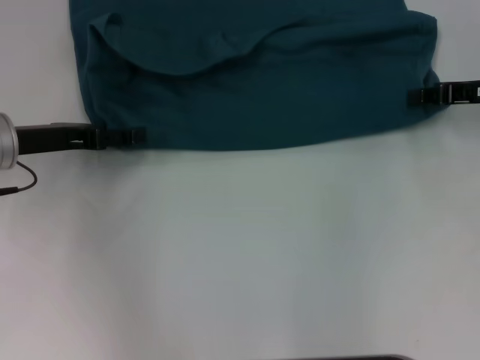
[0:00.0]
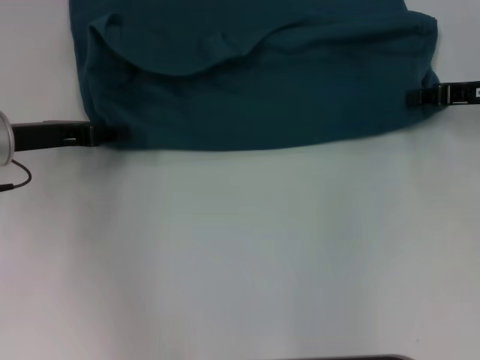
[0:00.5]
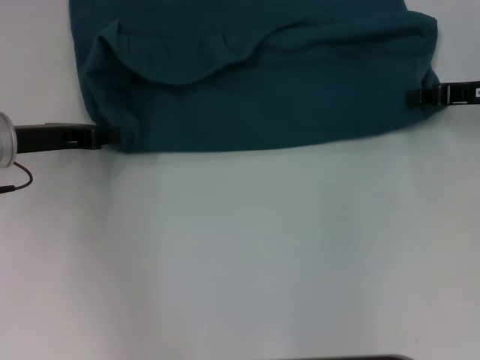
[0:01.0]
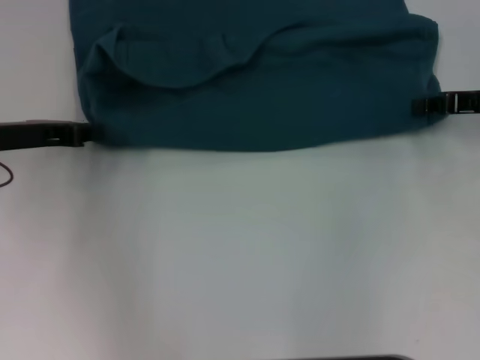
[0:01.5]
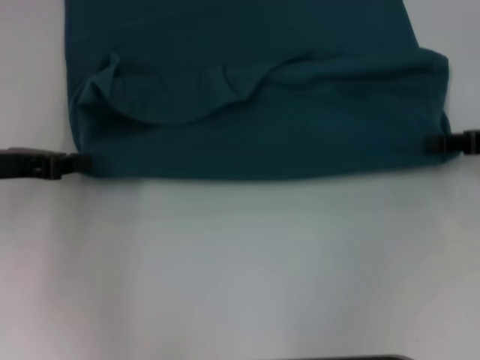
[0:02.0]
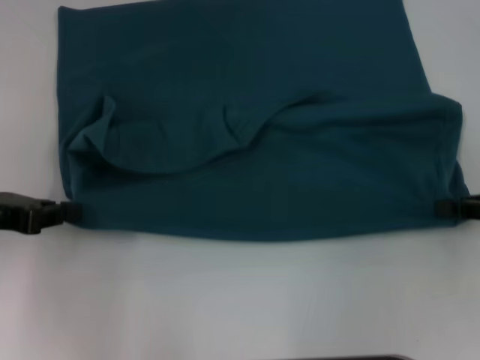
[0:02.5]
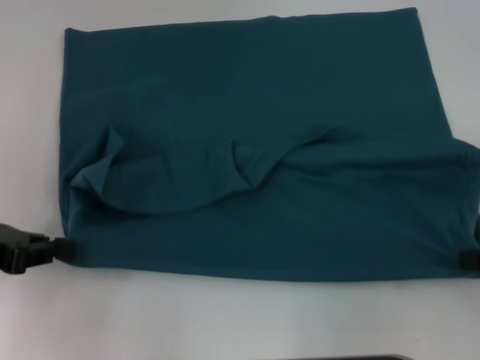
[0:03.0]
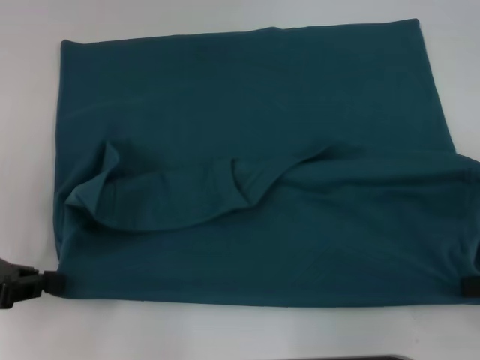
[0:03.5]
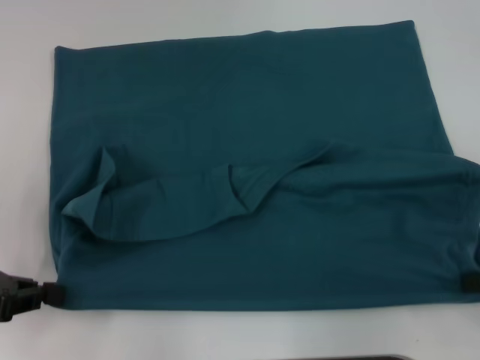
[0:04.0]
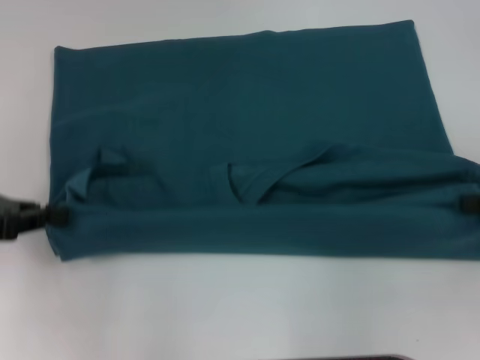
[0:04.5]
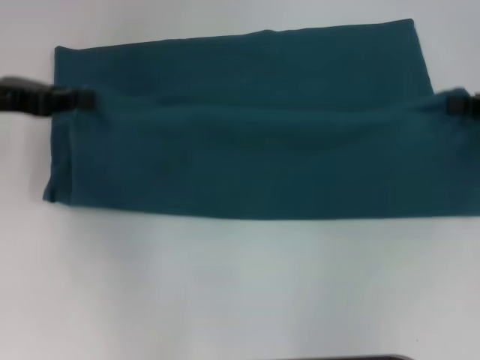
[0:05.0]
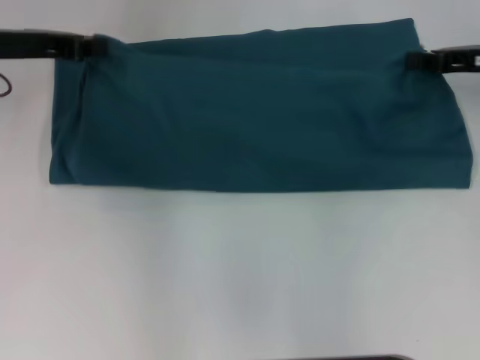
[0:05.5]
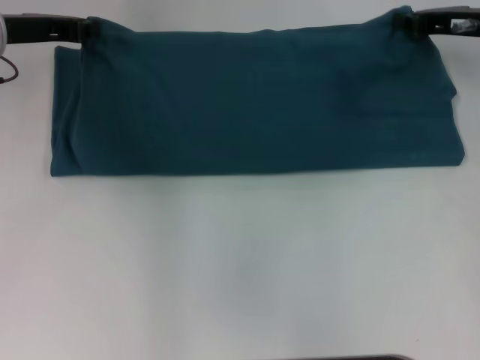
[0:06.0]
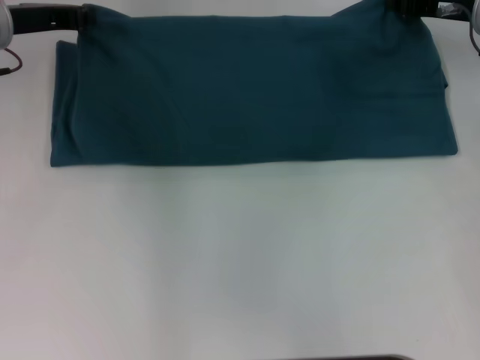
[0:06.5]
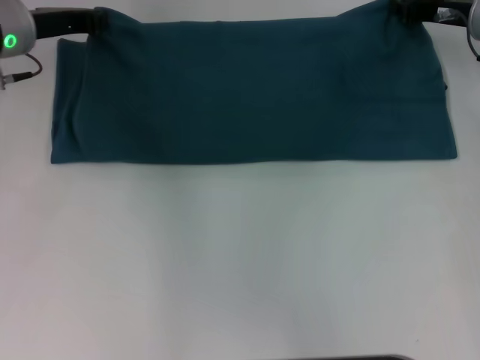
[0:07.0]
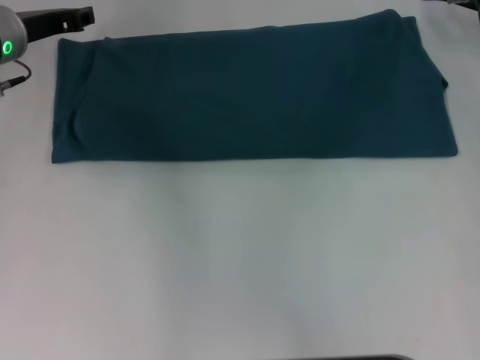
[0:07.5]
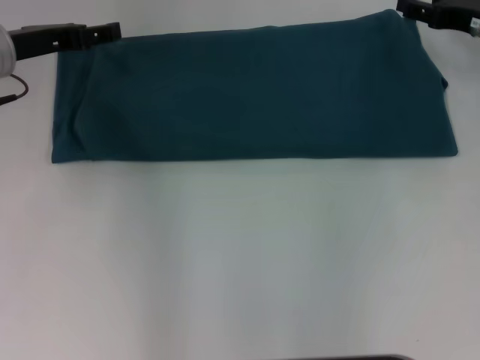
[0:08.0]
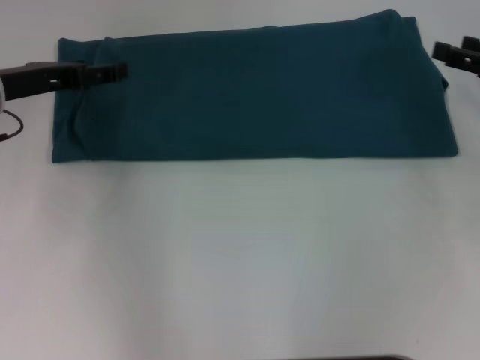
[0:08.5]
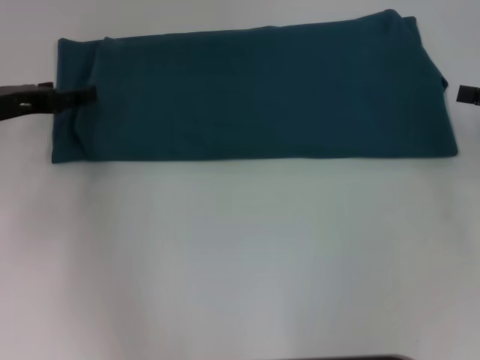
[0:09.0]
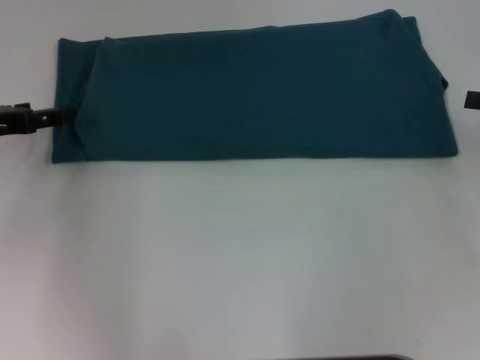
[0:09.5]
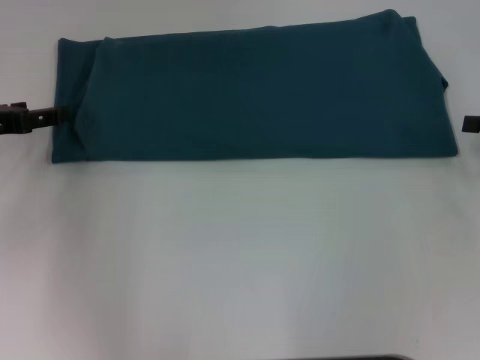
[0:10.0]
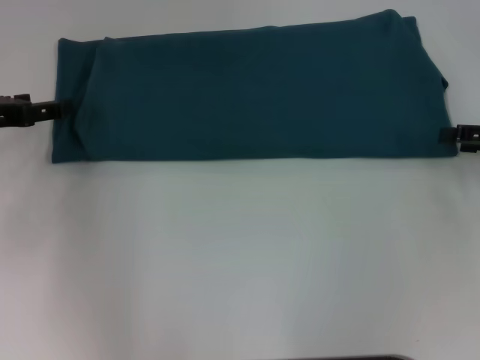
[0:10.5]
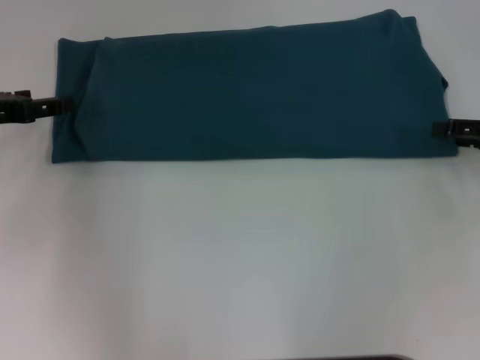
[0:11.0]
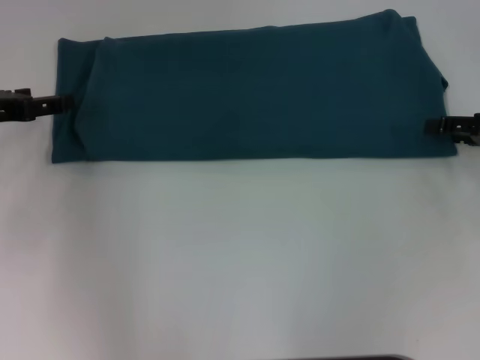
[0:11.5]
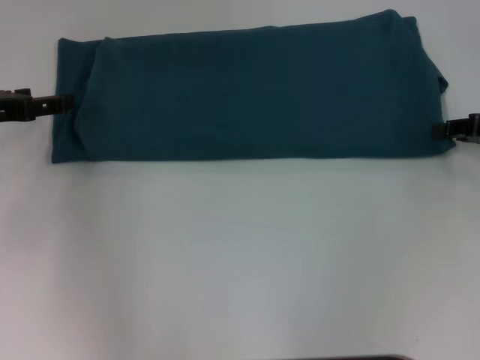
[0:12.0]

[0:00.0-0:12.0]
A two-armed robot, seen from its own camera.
Step, 0:00.0 to 0:02.5: Pull the clothes with your left hand.
Step, 0:00.0 to 0:02.5: Pull the clothes with your right hand.
Step, 0:03.0 to 0:07.0: Fold the clothes to the left.
Step, 0:03.0 to 0:07.0: Fold the clothes to the right.
0:00.0 to 0:02.0: The right gripper travels backward by about 5 cm; the left gripper shifts by roughly 5 cm, and closes.
0:02.0 to 0:04.0: The two grippers go approximately 10 cm backward.
0:04.0 to 0:06.0: Both grippers travel together forward, approximately 20 cm.
0:06.0 to 0:08.0: The left gripper opens its fingers. The right gripper opens up.
0:08.0 to 0:10.0: The right gripper moves backward and to the right, approximately 15 cm; the left gripper is displaced backward and to the left by approximately 10 cm.

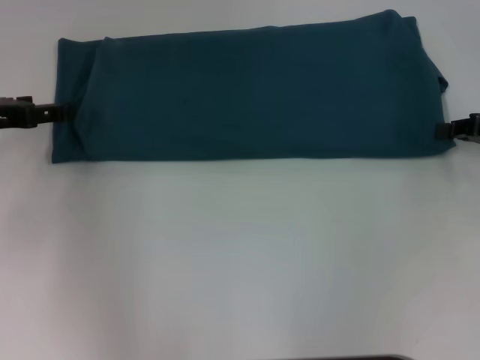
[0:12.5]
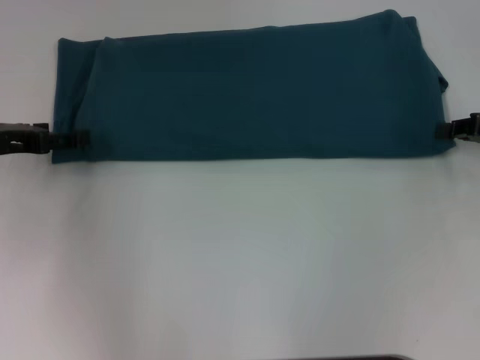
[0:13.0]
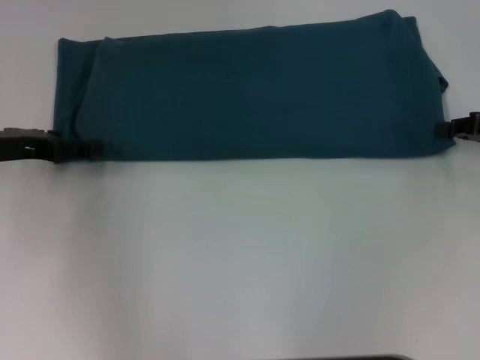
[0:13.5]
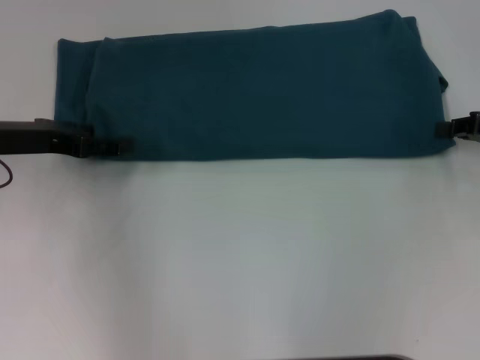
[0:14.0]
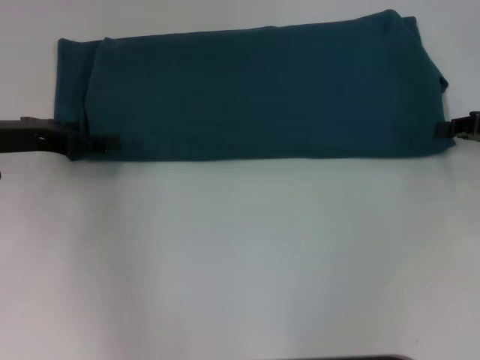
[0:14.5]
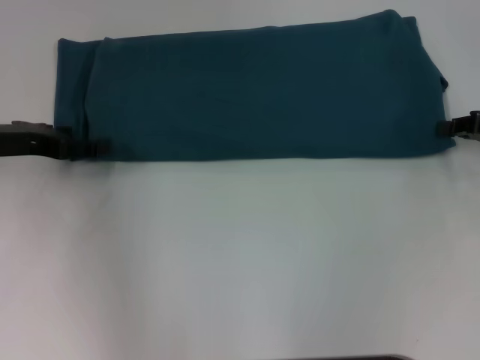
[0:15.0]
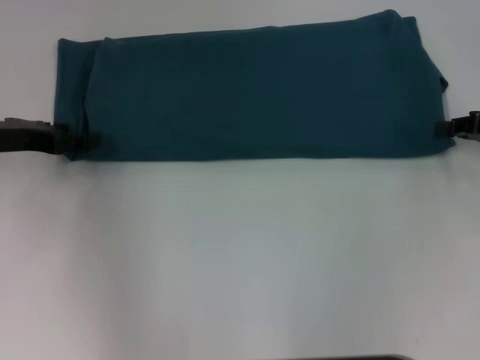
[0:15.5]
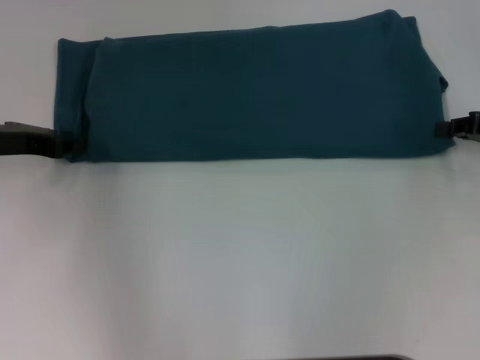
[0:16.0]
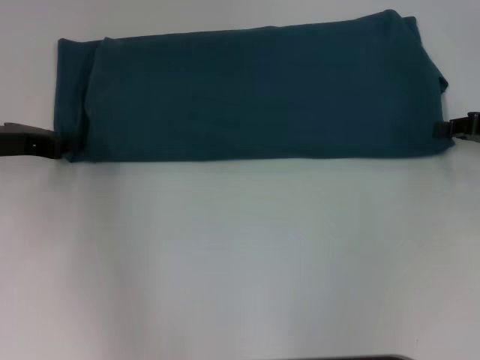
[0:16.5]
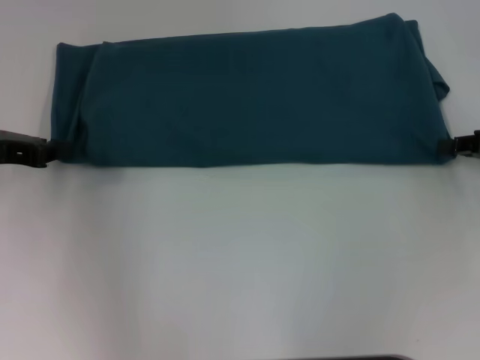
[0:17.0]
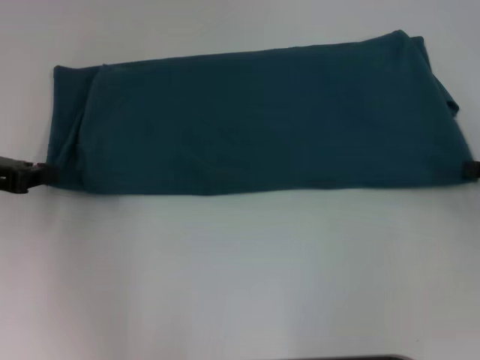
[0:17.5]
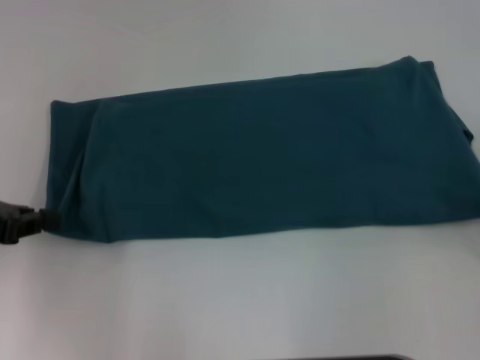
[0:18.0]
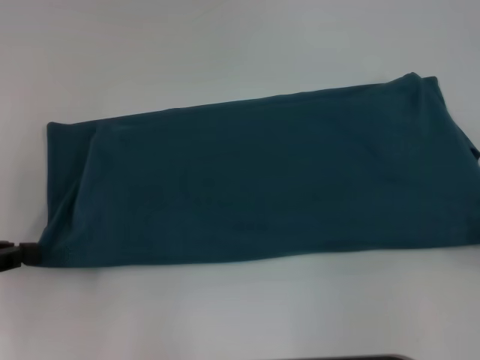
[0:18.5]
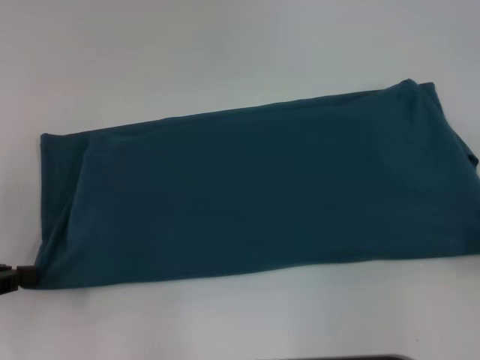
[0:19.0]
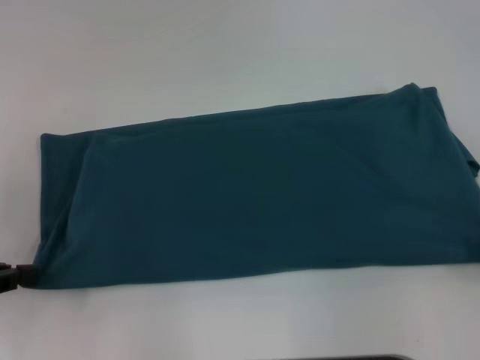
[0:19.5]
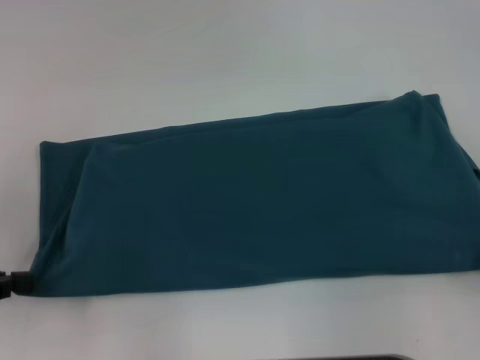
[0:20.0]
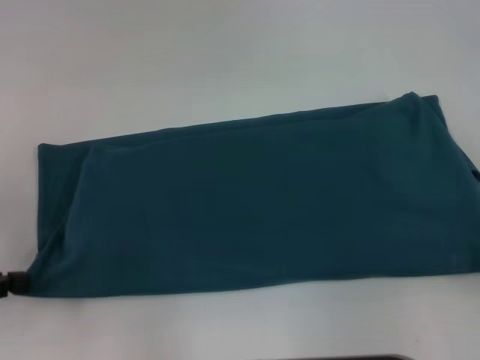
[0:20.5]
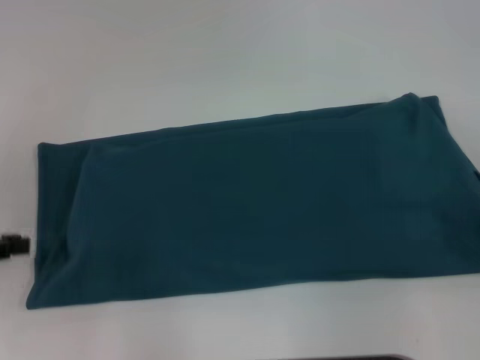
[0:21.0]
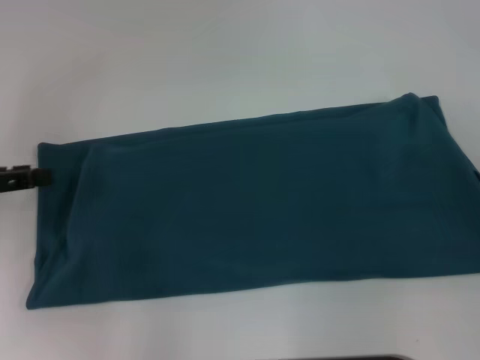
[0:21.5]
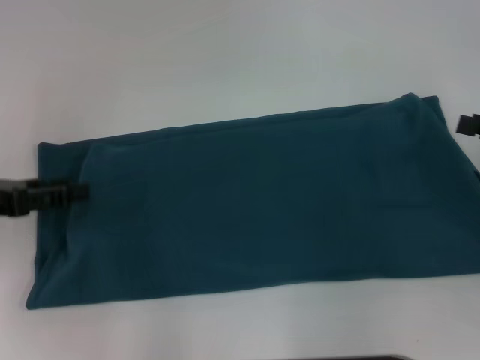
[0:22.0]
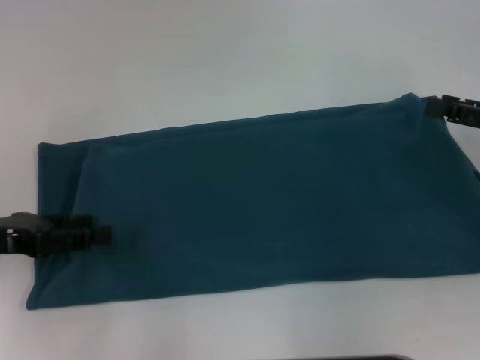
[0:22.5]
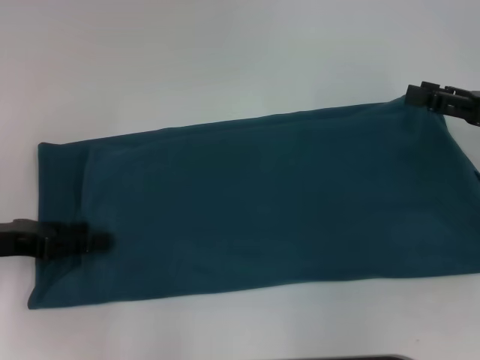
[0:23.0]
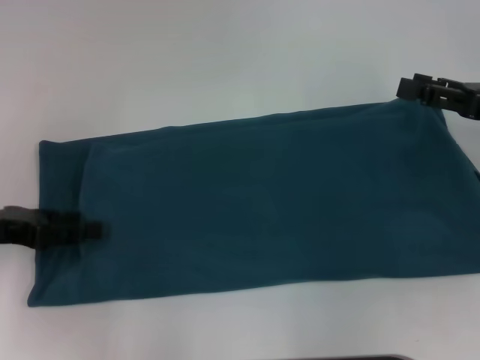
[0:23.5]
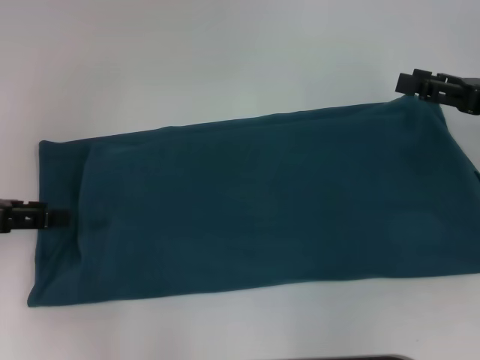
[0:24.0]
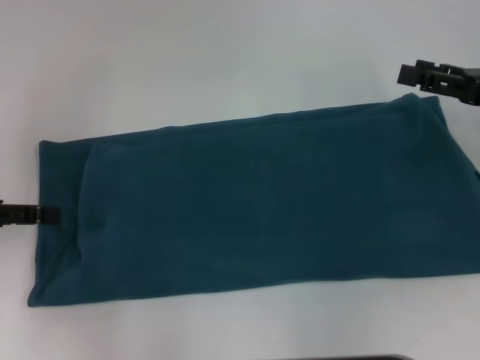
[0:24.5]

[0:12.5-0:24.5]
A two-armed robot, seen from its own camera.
Step, 0:12.5 to 0:20.5: Pull the clothes with your left hand.
Step, 0:12.5 to 0:20.5: Pull the clothes with your right hand.
0:12.5 to 0:14.5: There are only small adjustments of the grippers.
0:14.5 to 0:16.5: The left gripper closes.
0:16.5 to 0:18.5: The left gripper moves backward and to the left, roughly 15 cm. Meanwhile the right gripper shifts about 15 cm backward and to the right.
0:18.5 to 0:20.5: The grippers move only a little.
0:20.5 to 0:22.5: The left gripper moves roughly 5 cm, and opens its fingers; the right gripper travels forward and to the left by approximately 10 cm, and opens.
0:22.5 to 0:24.5: The left gripper changes place by roughly 5 cm.

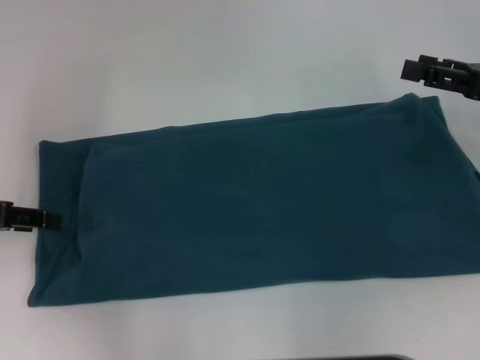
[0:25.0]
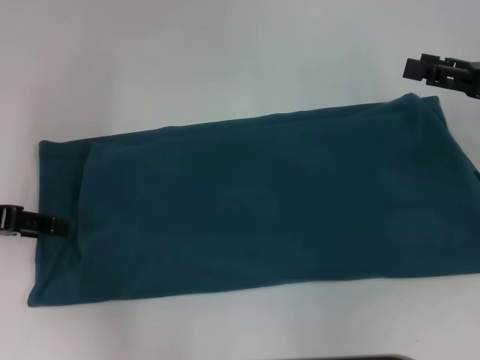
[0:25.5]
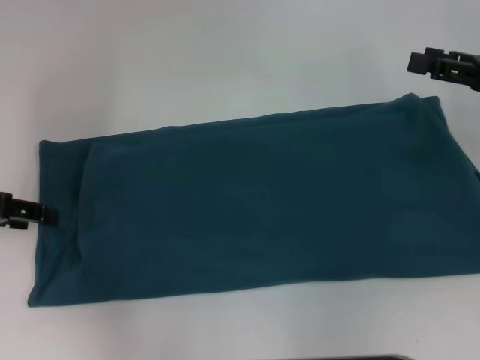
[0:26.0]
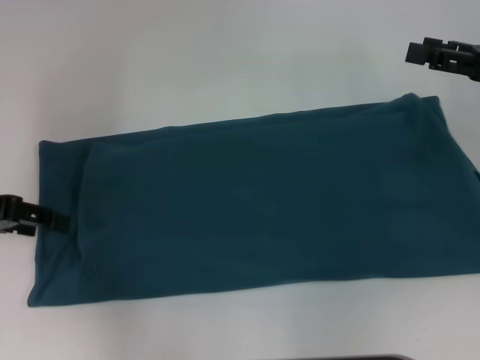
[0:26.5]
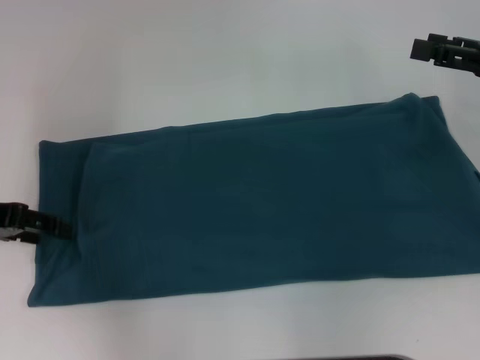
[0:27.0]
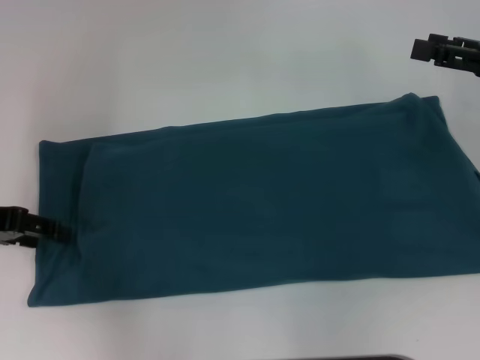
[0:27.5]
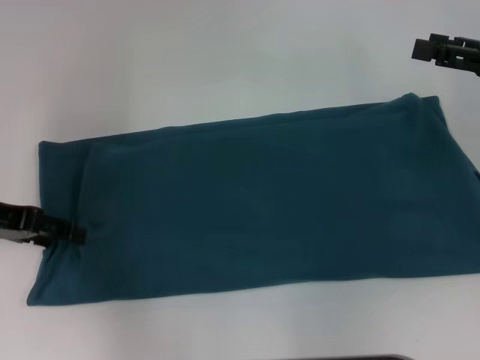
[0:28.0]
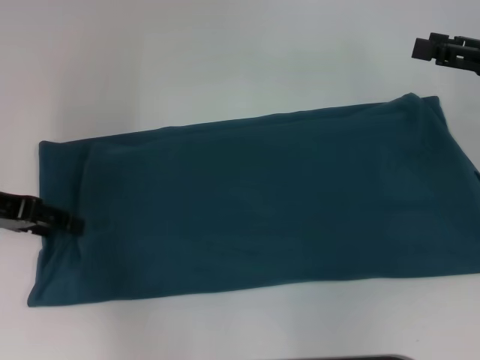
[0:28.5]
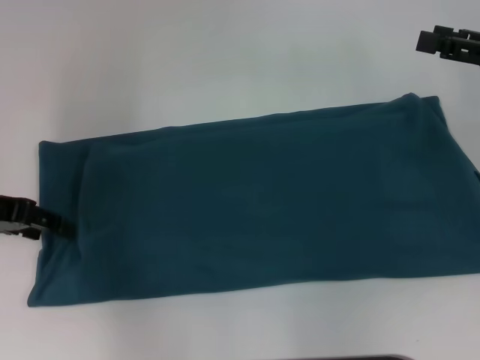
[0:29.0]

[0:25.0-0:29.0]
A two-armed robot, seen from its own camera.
0:25.0 to 0:29.0: There are only small adjustments of the grippers.
